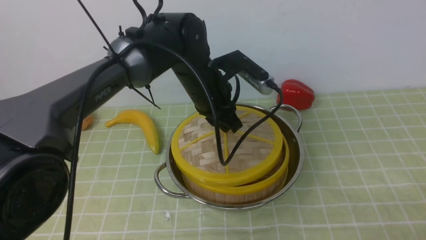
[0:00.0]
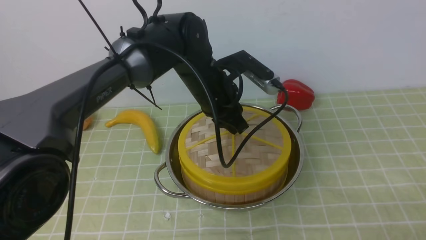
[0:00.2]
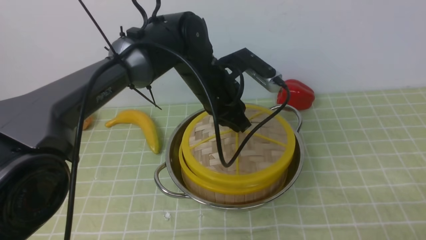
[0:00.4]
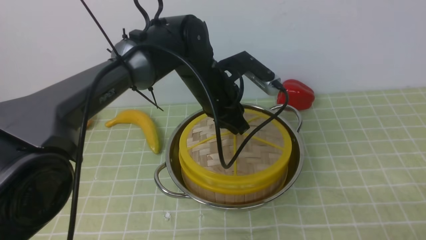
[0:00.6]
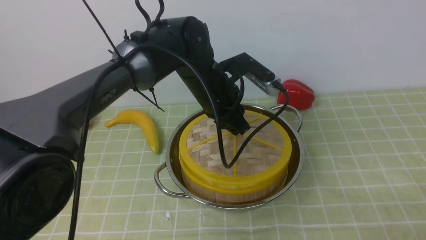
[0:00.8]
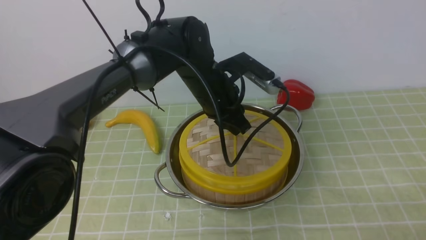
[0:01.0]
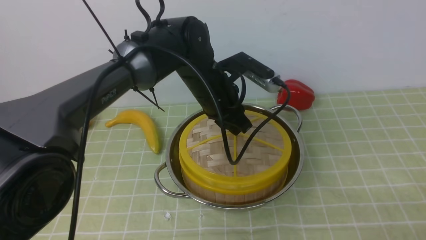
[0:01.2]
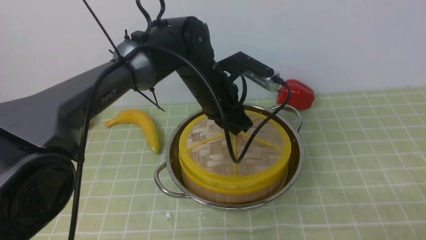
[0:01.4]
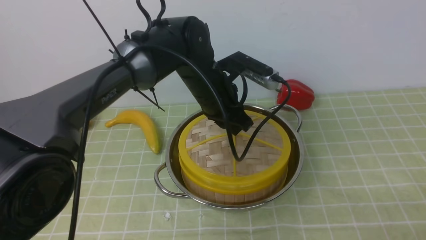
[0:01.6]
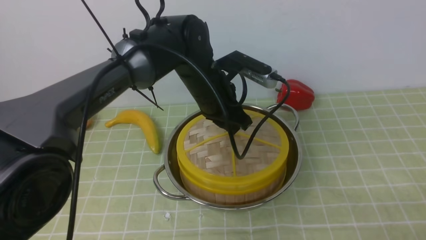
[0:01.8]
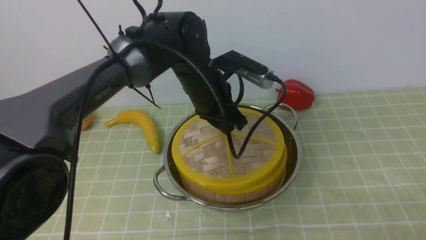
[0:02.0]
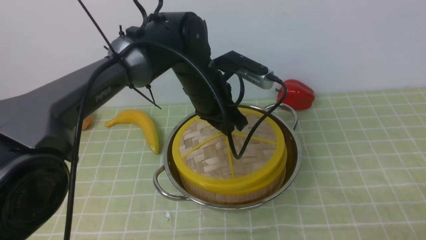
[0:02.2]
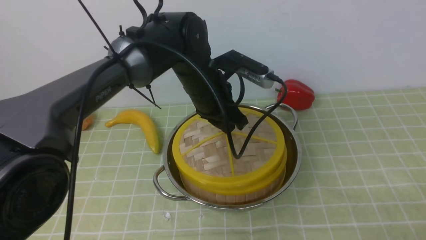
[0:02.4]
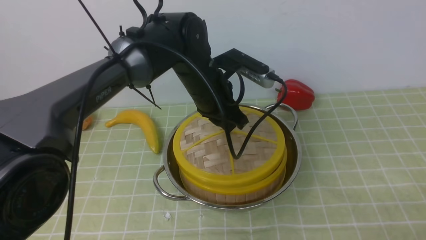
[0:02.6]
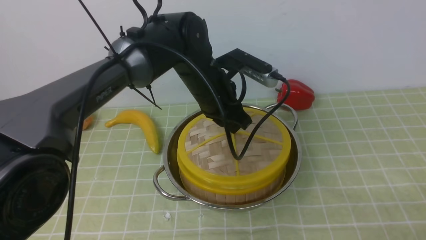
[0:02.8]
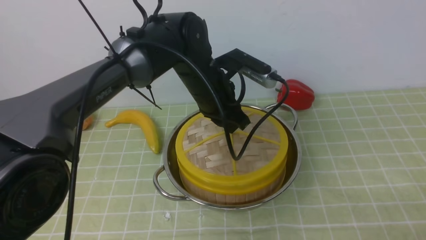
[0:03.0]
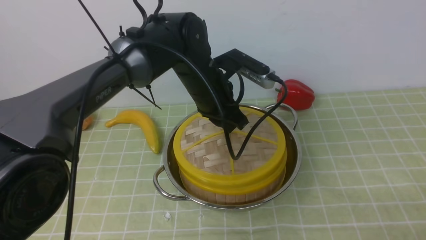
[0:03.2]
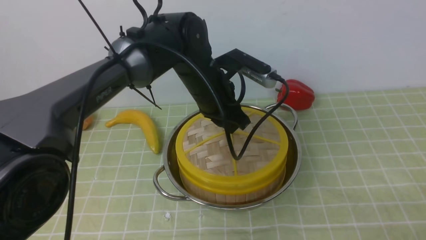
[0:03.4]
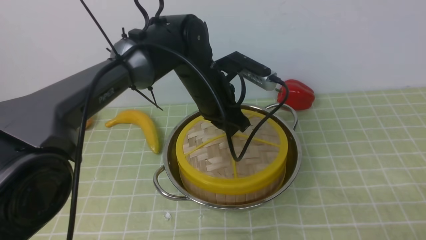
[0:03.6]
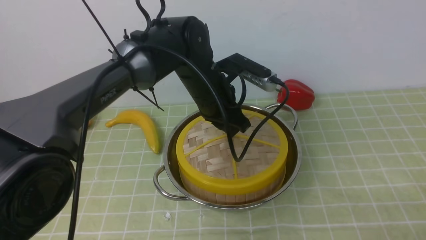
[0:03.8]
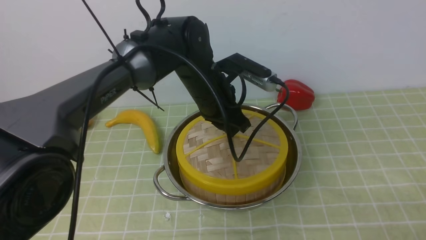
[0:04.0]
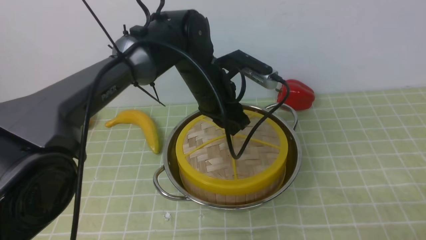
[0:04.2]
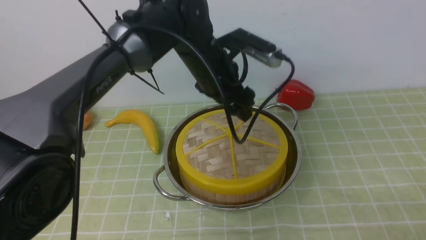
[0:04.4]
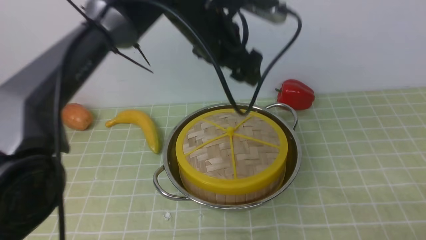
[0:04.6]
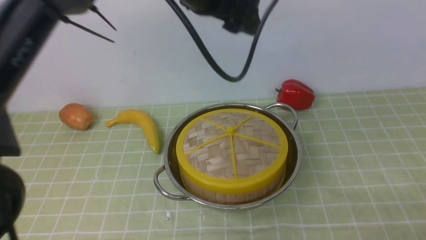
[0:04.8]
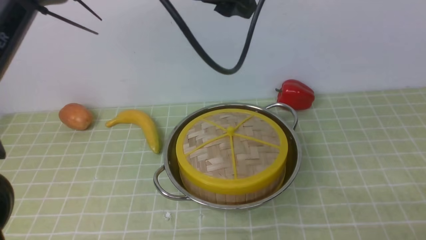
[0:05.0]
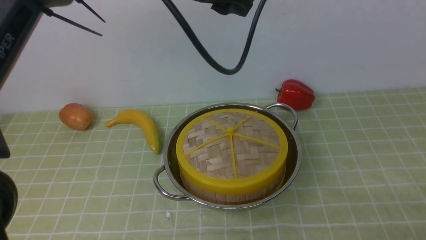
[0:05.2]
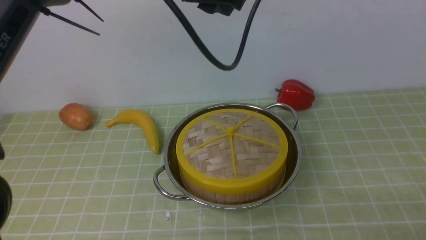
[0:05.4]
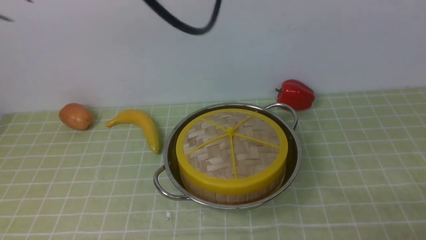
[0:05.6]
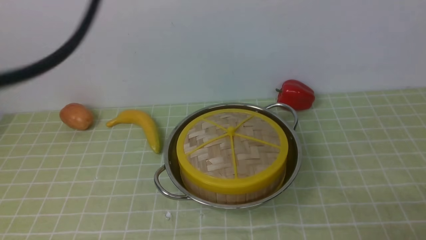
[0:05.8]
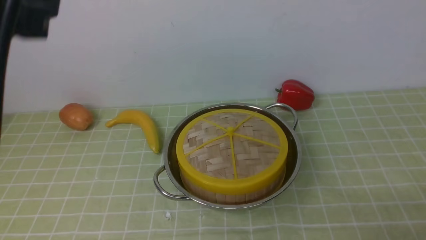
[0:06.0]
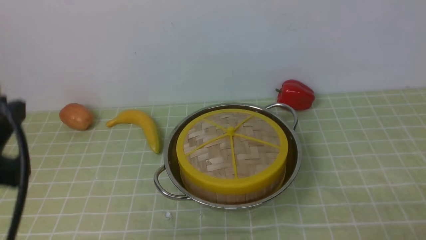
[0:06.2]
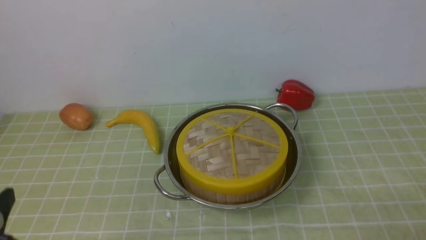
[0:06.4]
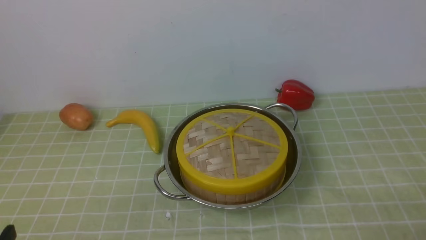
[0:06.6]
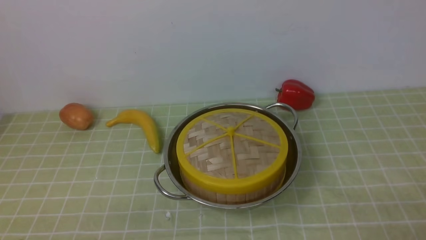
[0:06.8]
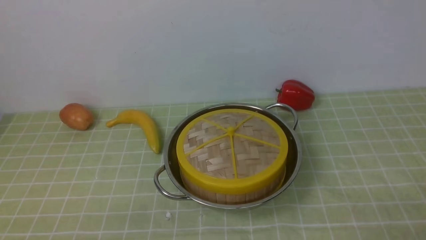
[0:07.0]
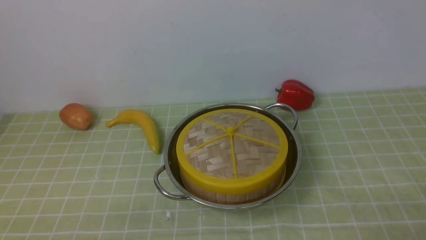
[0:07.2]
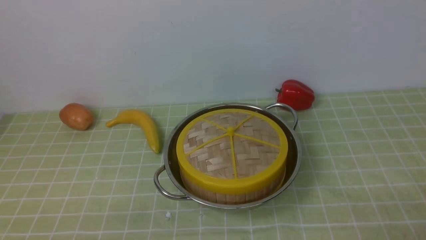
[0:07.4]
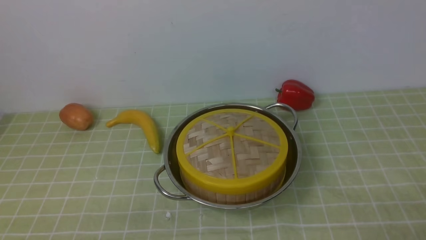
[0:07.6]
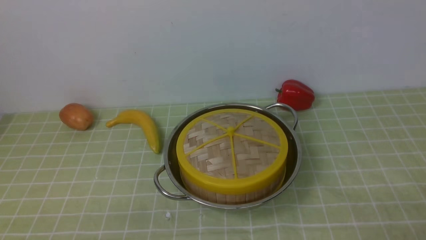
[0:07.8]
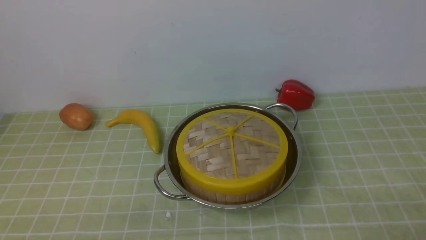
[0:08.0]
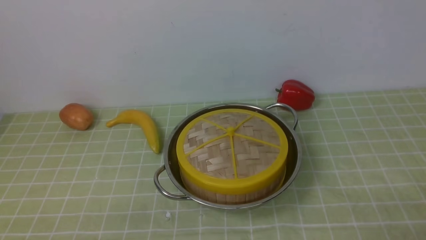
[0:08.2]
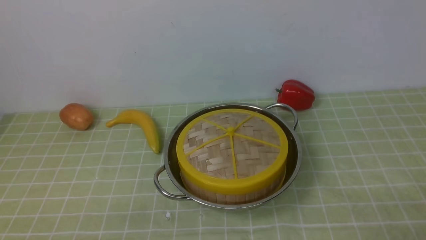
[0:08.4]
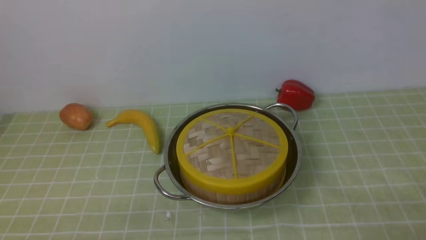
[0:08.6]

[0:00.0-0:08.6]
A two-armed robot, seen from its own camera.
Task of the whole recording: place the steamer in the pot on the green tablecloth, and put the lid on the steamer.
Step, 0:00.0 to 0:04.6: use the left arm to place the steamer lid on the steamer.
0:00.0 to 0:02.8: There are only small adjustments of the grippers.
0:02.8 to 0:04.4: The left gripper opens.
0:04.4 to 0:05.8: The left gripper heads upward and backward, covering some 25 cm, and closes.
0:05.8 to 0:07.2: The left gripper heads downward, backward and to the left, covering approximately 40 cm.
0:07.2 to 0:08.6: Both grippers stay about where they are.

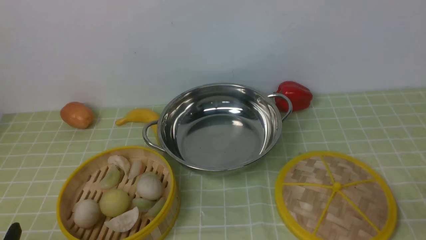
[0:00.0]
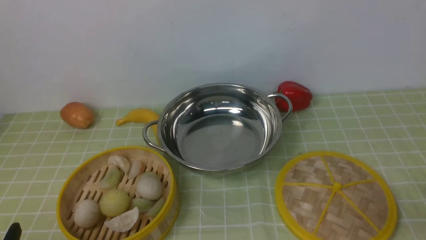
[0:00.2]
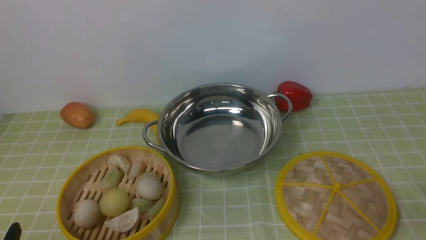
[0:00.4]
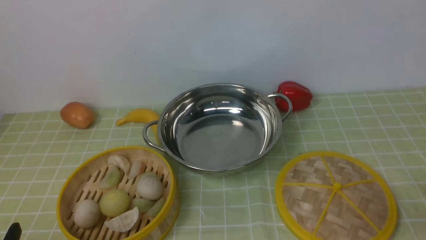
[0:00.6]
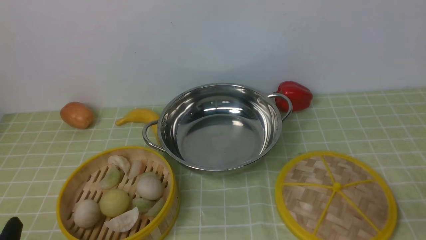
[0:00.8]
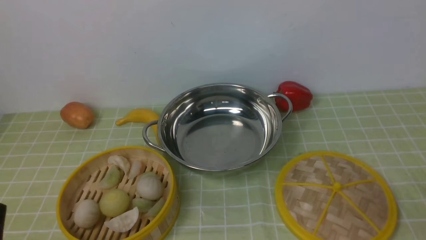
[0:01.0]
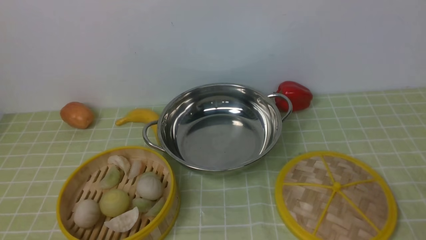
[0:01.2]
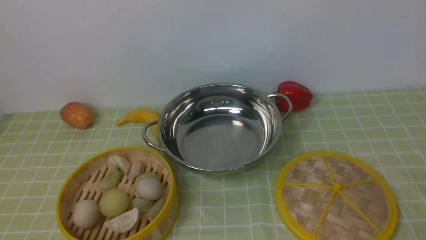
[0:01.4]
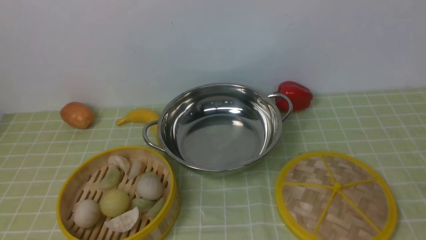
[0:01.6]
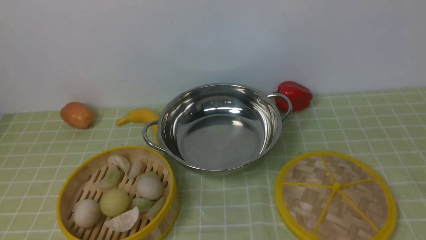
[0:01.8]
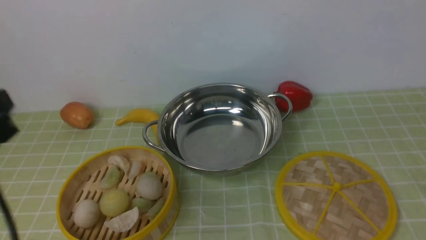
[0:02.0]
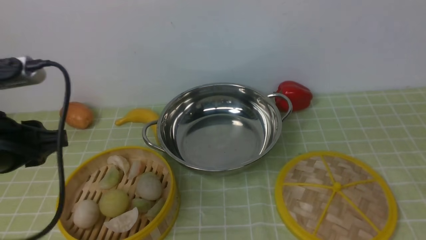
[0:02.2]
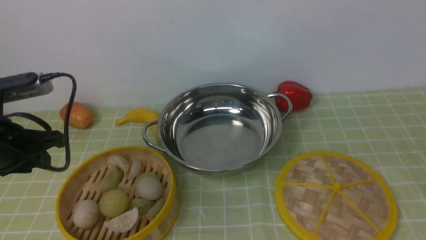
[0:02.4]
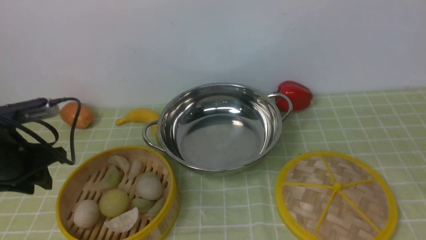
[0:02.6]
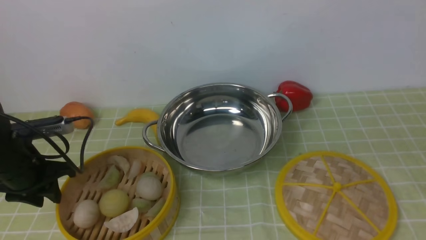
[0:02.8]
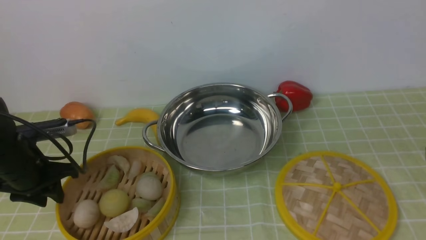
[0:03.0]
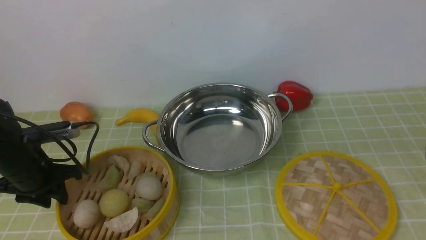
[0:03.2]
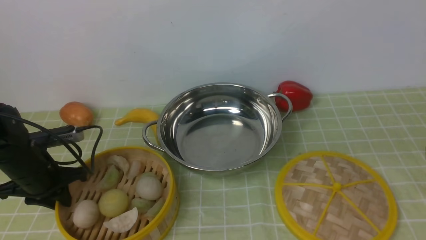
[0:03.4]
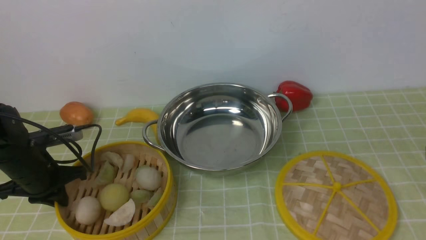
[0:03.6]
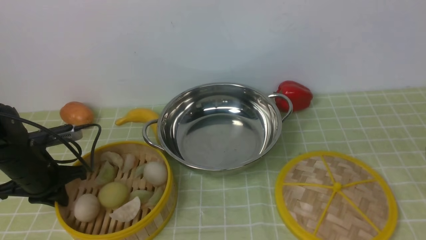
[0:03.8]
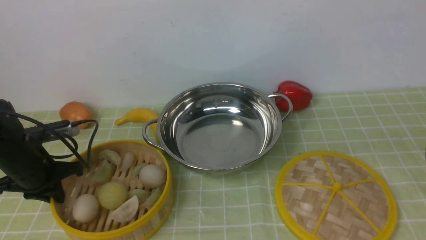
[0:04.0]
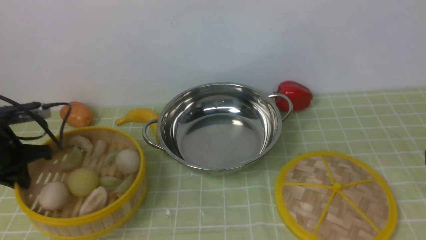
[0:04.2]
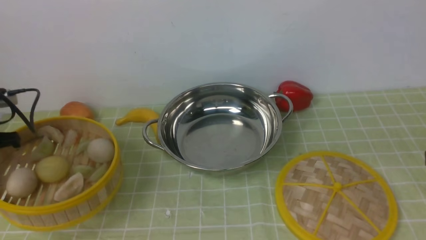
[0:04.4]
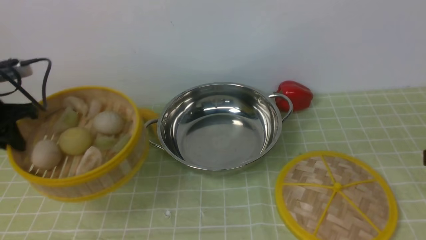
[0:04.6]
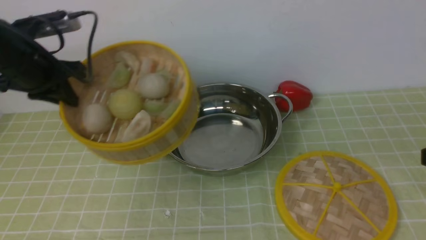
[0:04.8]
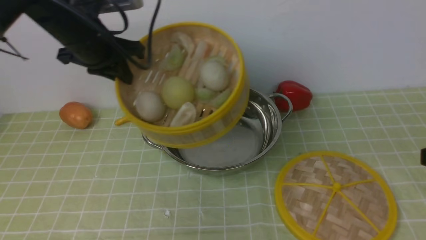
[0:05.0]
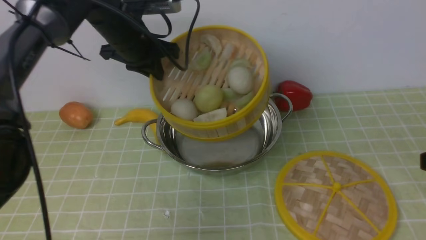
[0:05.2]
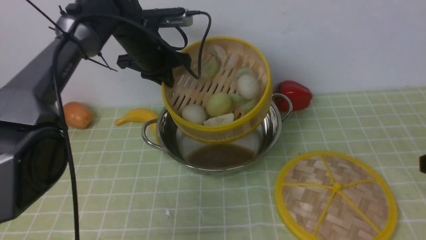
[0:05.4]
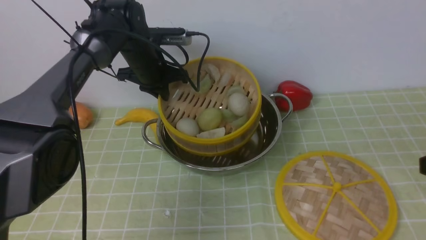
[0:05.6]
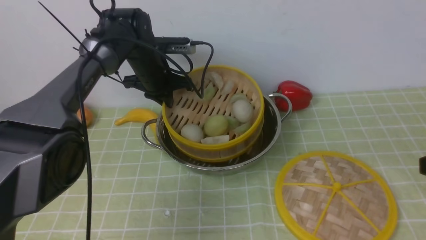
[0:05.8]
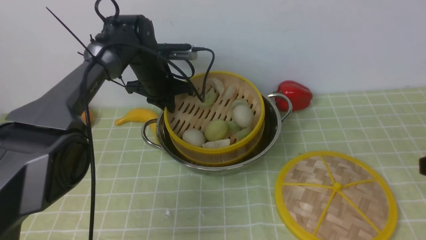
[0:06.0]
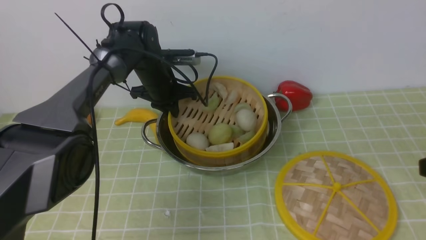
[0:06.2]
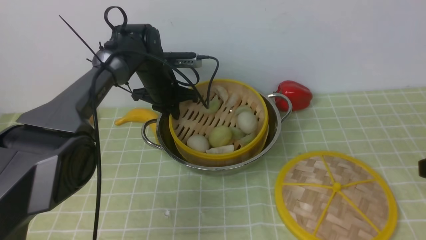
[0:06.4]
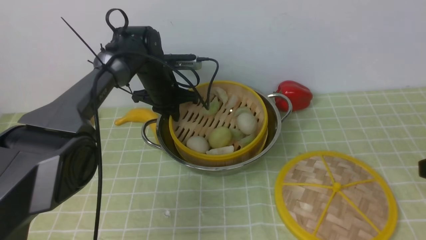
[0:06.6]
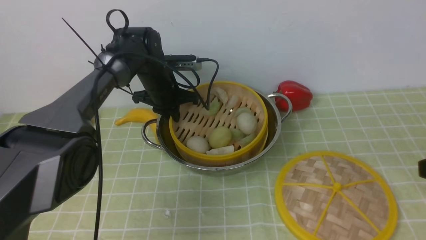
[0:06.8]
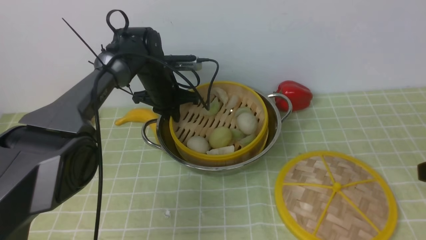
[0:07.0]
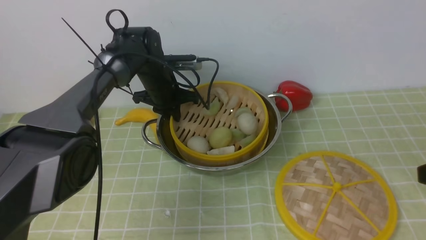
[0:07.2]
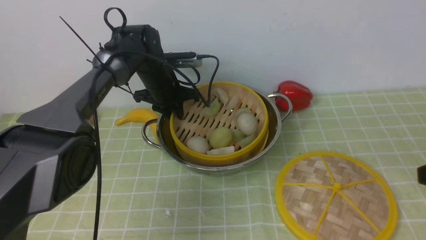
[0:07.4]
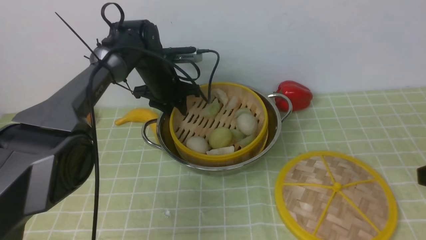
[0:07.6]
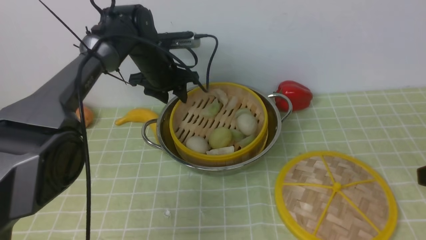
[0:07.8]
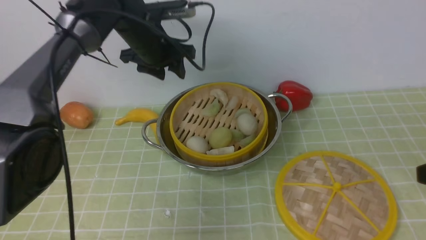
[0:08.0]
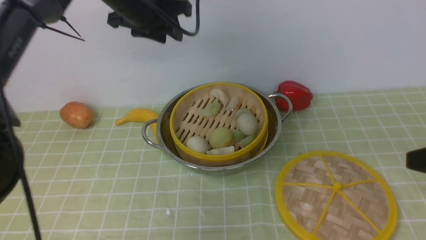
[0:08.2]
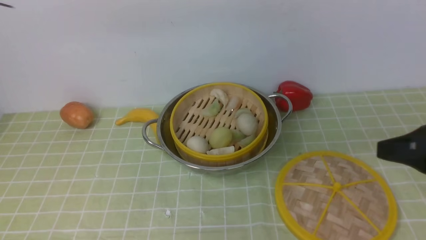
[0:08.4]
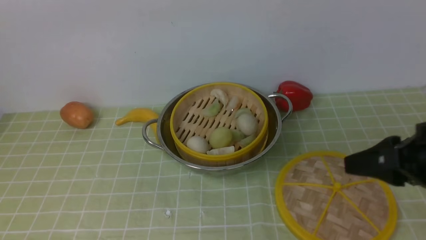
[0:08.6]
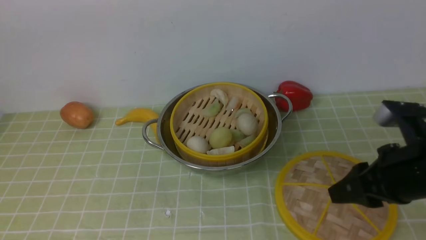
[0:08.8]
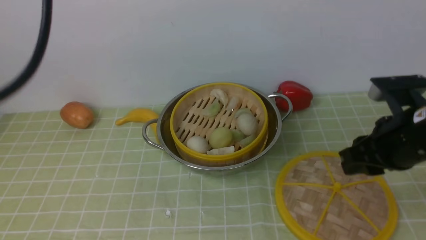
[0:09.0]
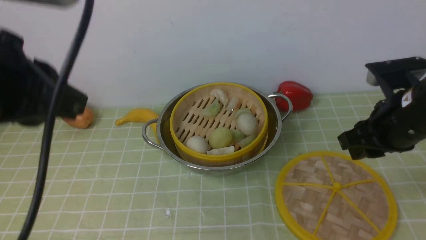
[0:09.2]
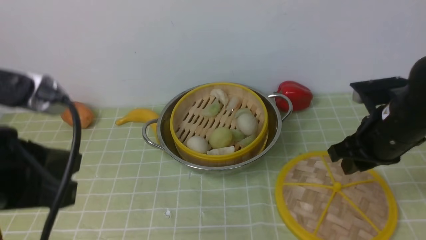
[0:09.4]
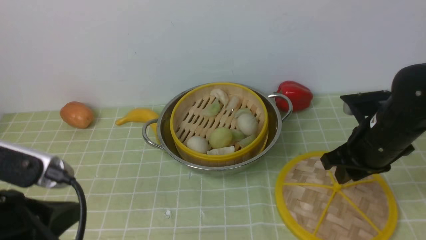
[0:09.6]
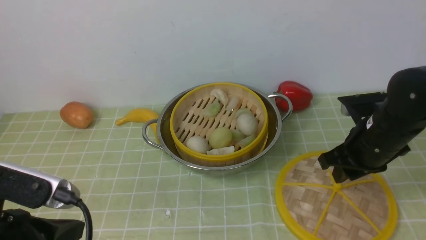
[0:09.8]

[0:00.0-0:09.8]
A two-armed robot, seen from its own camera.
Task of the whole recording: place the steamer in the pot on the green tablecloth, and put the lid on the steamer.
Step, 0:00.0 to 0:04.6: use the left arm to lift the steamer closest to it.
Step, 0:04.8 to 0:08.2: use the left arm to put the steamer into the iron steamer pot in the middle.
0:01.4 to 0:02.8: The left gripper is displaced forward by about 25 cm.
0:02.8 to 0:04.2: The left gripper moves roughly 5 cm, and closes its fingers.
0:04.2 to 0:05.6: The left gripper heads to the right and forward, covering about 30 cm.
0:05.6 to 0:07.0: The left gripper moves downward, about 5 cm.
0:07.0 to 0:08.4: The left gripper moves upward and backward, roughly 35 cm, and opens, then closes again.
0:08.4 to 0:09.8: The left gripper heads backward and downward, covering roughly 35 cm; the right gripper moves forward and downward, approximately 15 cm.
